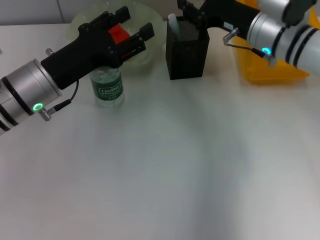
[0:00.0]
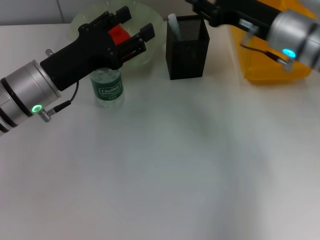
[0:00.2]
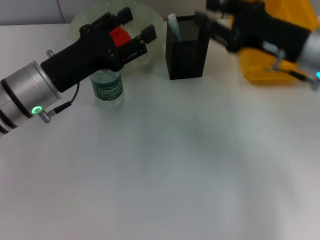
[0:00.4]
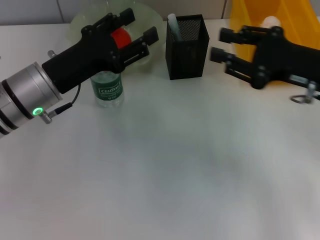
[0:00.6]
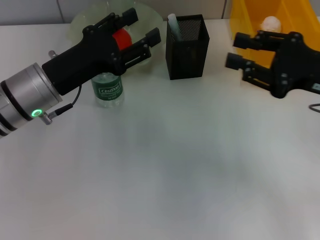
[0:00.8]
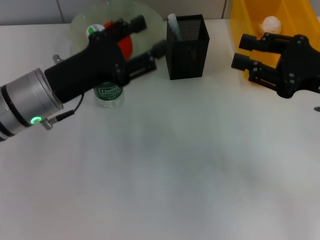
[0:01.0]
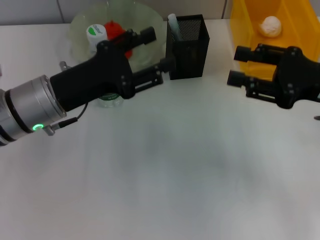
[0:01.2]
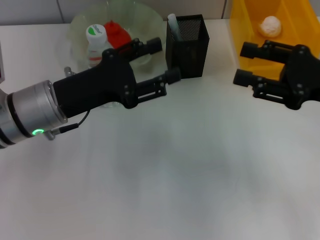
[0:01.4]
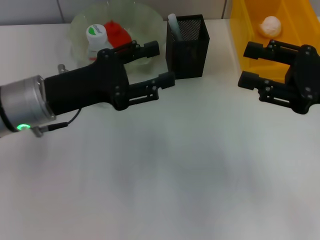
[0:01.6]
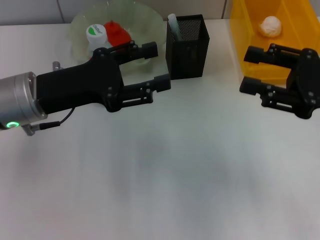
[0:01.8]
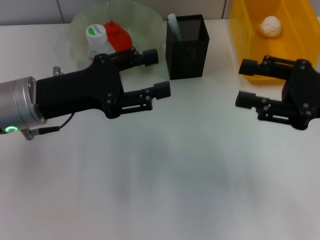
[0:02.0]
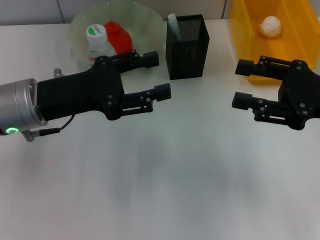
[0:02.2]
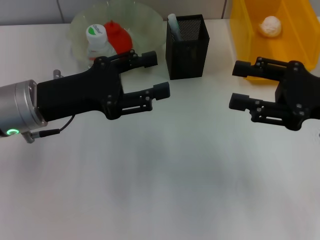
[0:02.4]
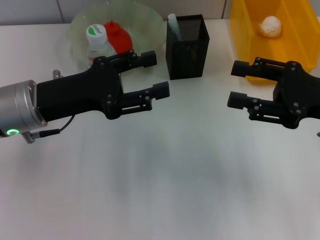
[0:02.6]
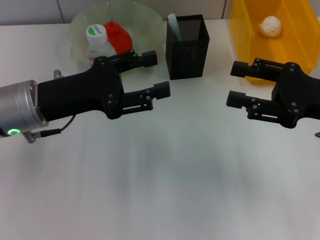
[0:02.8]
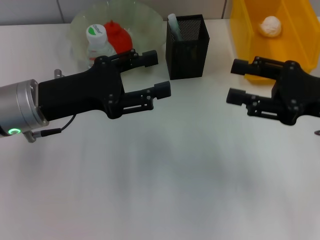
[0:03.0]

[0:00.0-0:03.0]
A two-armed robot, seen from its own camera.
0:00.0 to 0:01.6: The right gripper goes roughly 15 cm backward and to the right, and opens up.
0:01.6 to 0:03.0: The grippers stay close to where they were, moving slightly.

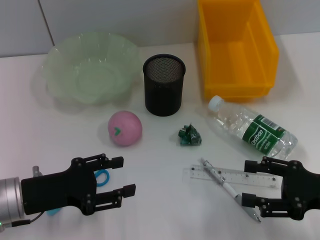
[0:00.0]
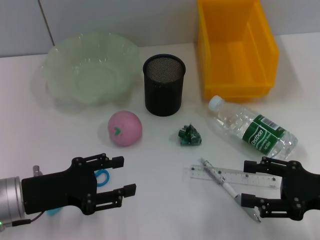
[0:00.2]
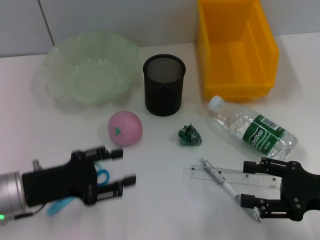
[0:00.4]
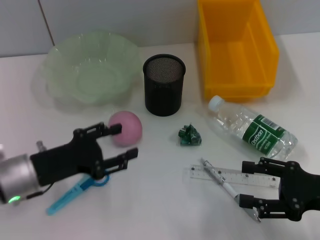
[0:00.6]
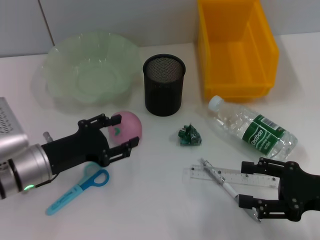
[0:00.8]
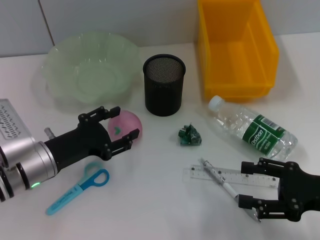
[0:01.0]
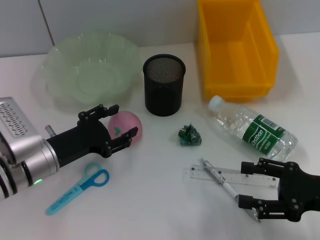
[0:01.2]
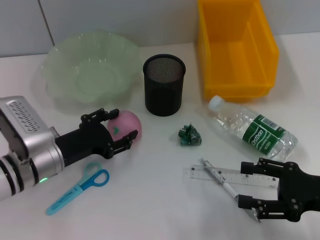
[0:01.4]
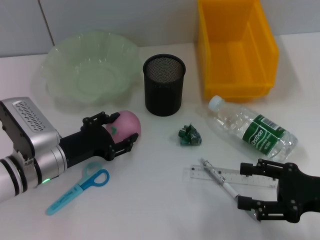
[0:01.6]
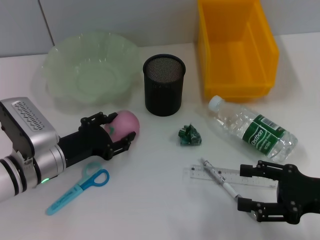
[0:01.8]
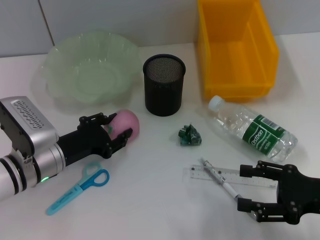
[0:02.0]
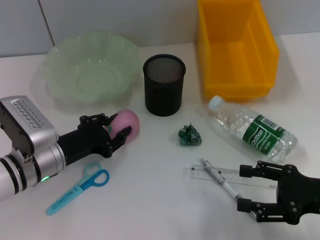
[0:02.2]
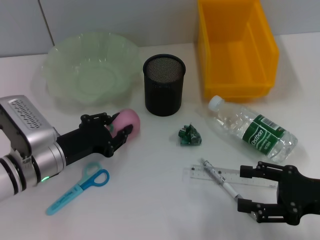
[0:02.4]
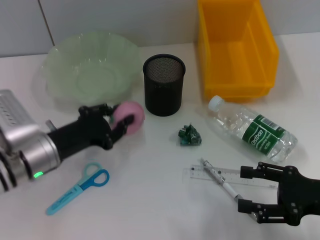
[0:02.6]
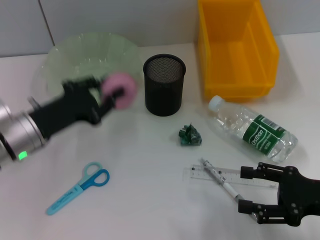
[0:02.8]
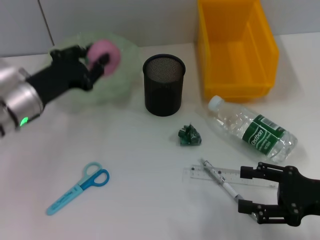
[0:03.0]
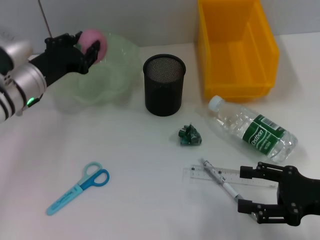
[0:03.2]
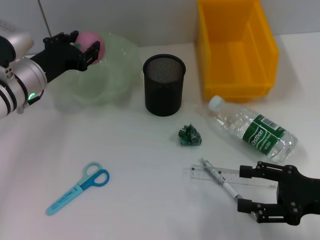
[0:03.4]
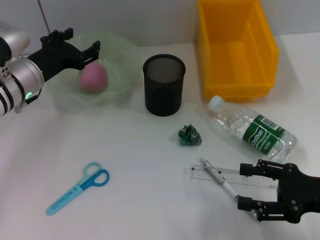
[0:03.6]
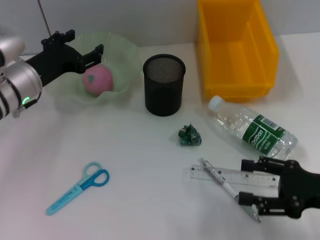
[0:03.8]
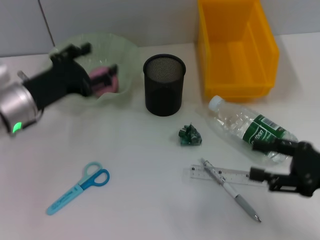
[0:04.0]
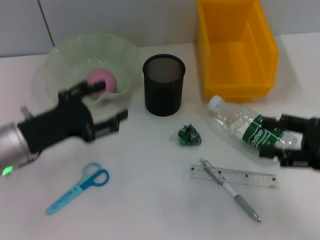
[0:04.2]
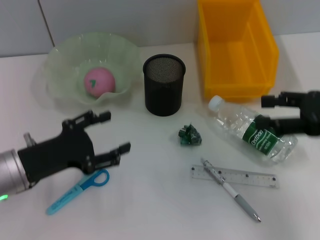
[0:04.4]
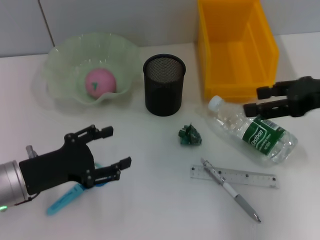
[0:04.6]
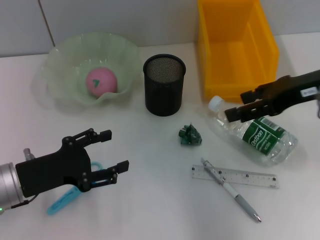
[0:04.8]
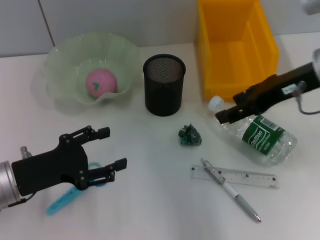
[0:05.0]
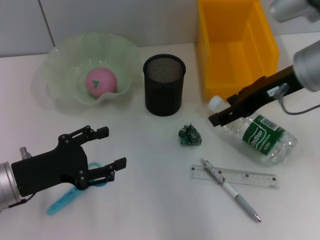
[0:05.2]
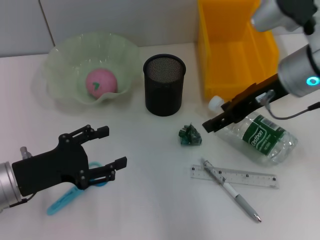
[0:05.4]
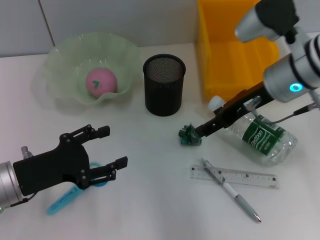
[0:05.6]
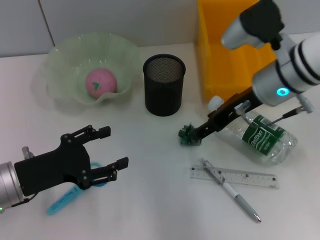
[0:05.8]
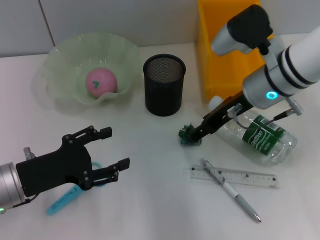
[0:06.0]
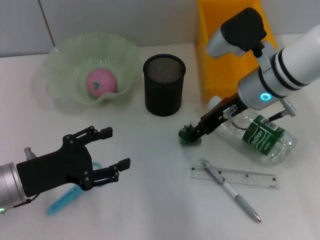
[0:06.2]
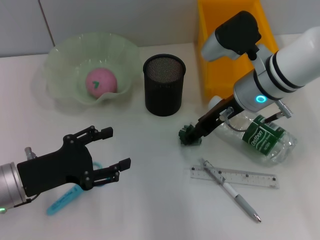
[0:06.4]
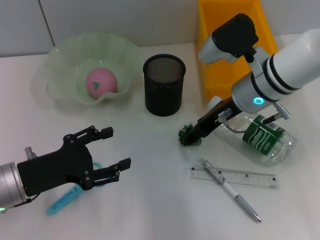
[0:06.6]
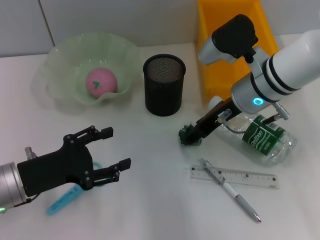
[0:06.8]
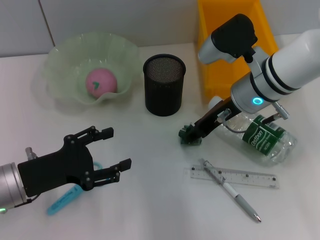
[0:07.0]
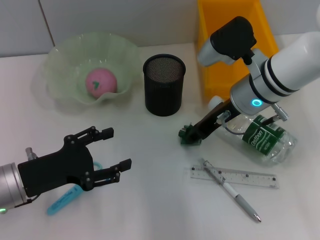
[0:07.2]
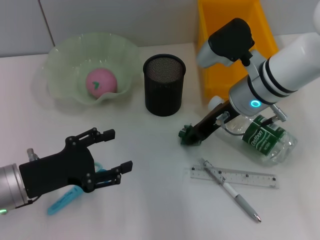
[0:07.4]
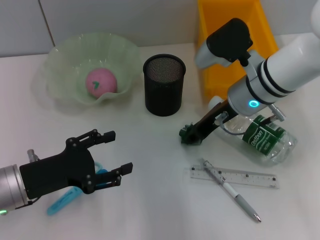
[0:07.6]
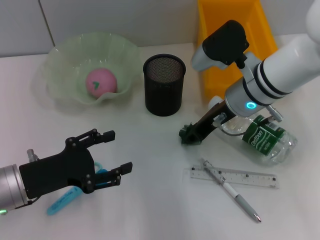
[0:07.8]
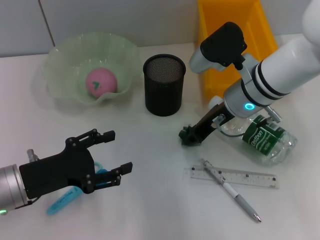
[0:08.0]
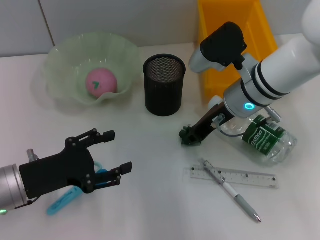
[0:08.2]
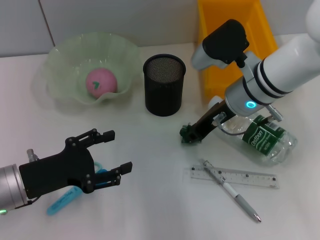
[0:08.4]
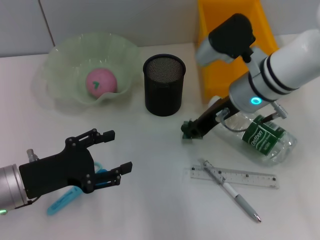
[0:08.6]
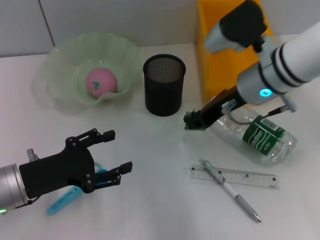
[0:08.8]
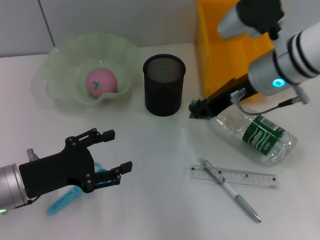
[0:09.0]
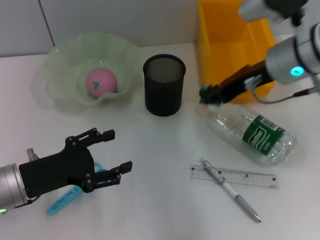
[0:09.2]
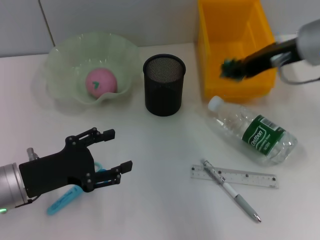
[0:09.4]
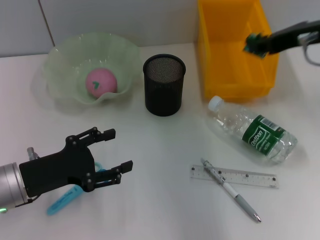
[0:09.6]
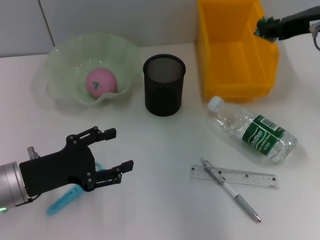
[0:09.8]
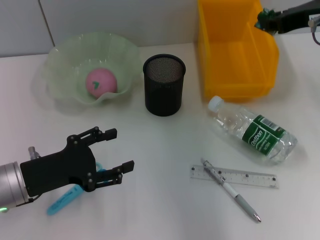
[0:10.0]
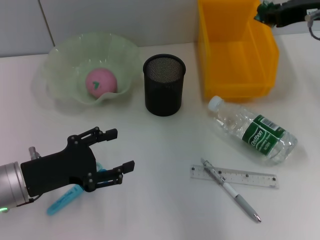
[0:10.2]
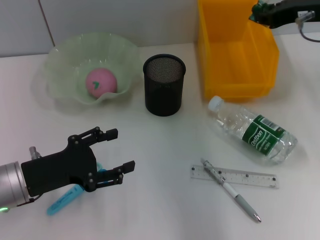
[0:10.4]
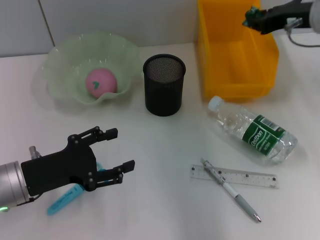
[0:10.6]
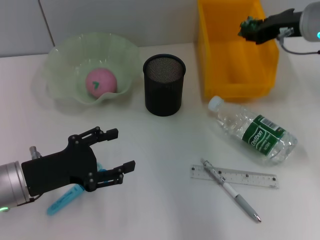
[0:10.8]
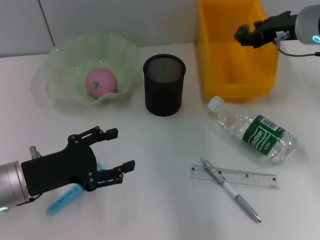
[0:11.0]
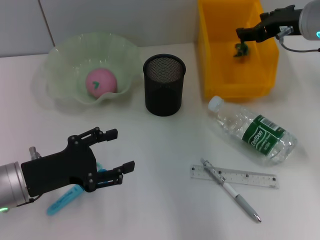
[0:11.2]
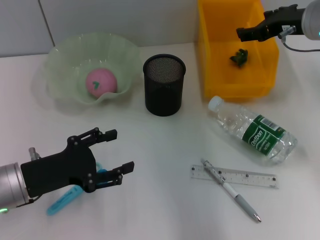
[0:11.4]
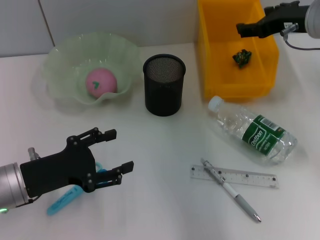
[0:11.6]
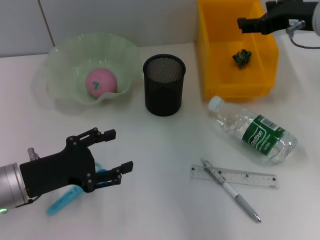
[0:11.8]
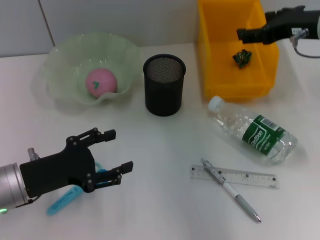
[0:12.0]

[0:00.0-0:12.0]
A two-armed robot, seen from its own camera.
Step, 0:00.0 to 0:01.6: Grab the peach with the left hand.
Step, 0:01.8 to 0:03.8: Place the peach into the fruit bowl with the left hand.
Step, 0:04.0 to 0:08.4: Grab the plastic with the right hand.
Step, 0:08.6 to 0:11.4: Place the plastic into the trash can with the right hand.
0:00.0 to 0:01.6: The left gripper heads forward, covering about 5 cm.
0:01.6 to 0:03.0: The left gripper heads upward and forward, covering roughly 10 cm, and closes.
0:03.0 to 0:04.4: The left gripper is displaced backward by roughly 10 cm, and opens up, while the right gripper heads upward and forward, covering about 15 cm.
0:04.4 to 0:06.0: The right gripper is displaced to the left and forward by approximately 20 cm.
0:06.0 to 0:07.6: The right gripper closes up.
0:07.6 to 0:09.0: The right gripper shifts roughly 5 cm upward.
0:09.0 to 0:10.4: The right gripper heads to the right and upward, covering about 10 cm.
0:10.4 to 0:12.0: The right gripper opens.

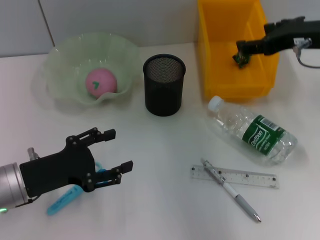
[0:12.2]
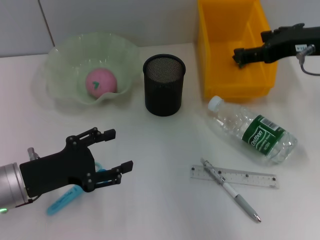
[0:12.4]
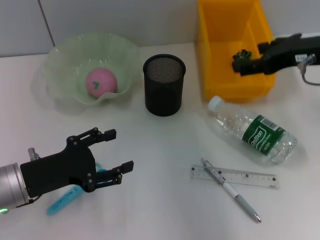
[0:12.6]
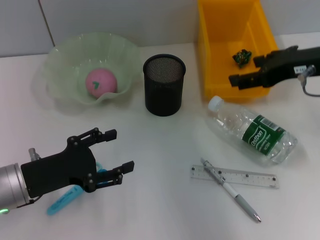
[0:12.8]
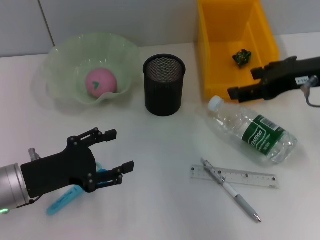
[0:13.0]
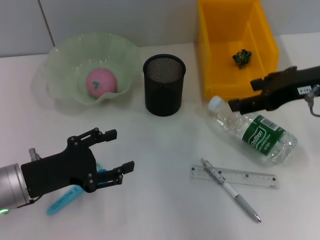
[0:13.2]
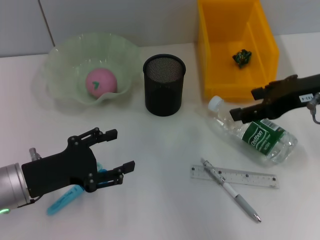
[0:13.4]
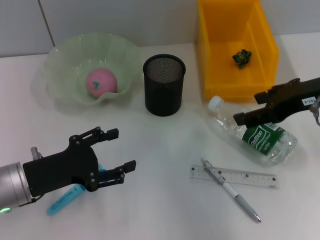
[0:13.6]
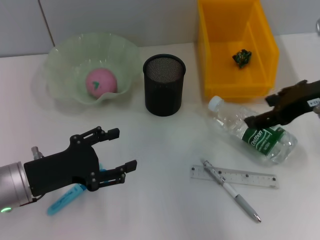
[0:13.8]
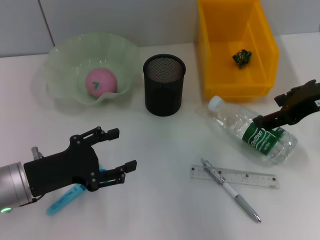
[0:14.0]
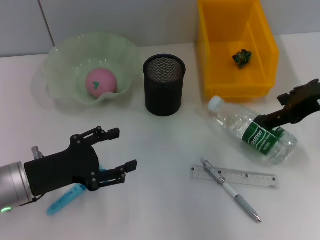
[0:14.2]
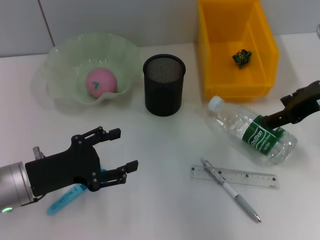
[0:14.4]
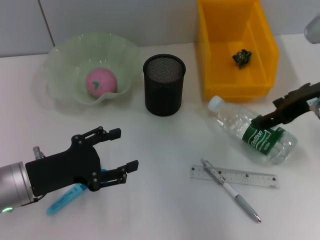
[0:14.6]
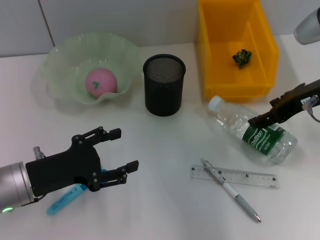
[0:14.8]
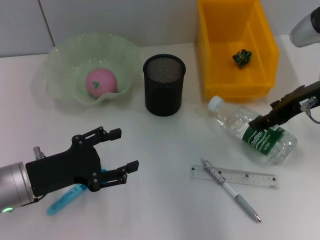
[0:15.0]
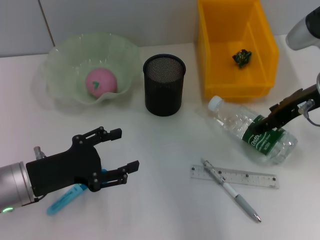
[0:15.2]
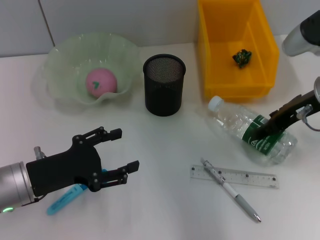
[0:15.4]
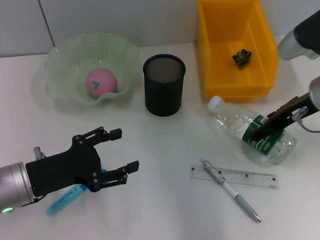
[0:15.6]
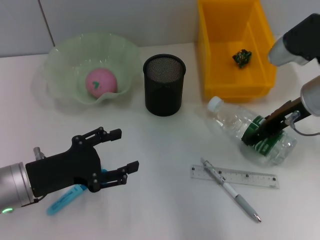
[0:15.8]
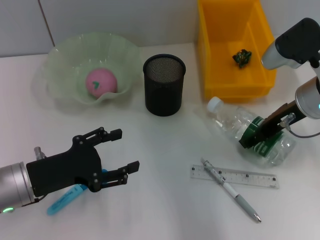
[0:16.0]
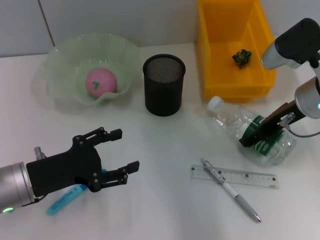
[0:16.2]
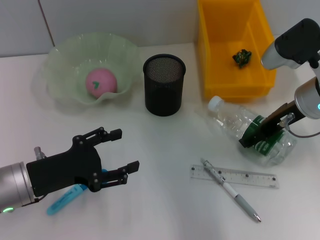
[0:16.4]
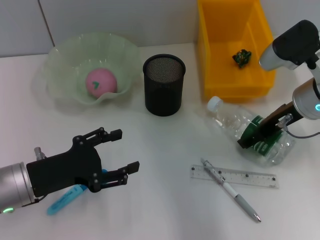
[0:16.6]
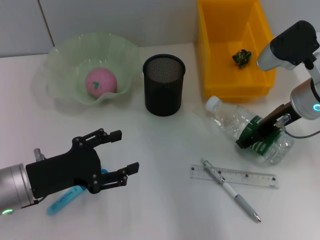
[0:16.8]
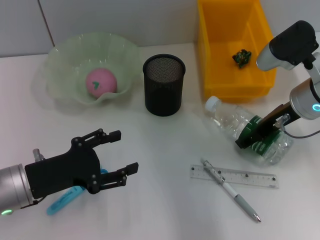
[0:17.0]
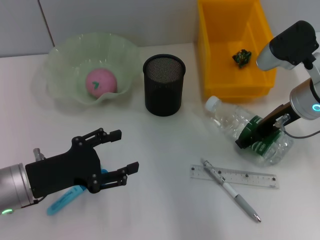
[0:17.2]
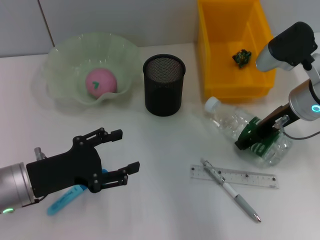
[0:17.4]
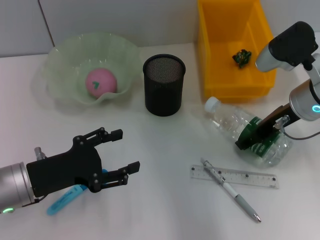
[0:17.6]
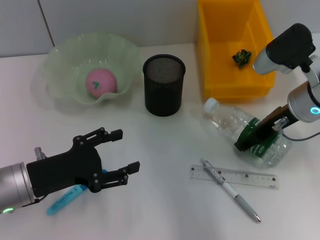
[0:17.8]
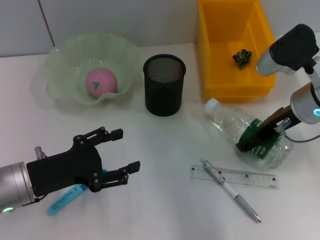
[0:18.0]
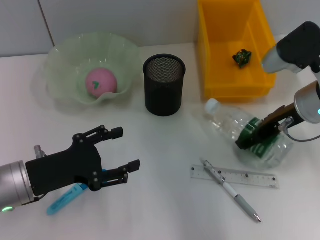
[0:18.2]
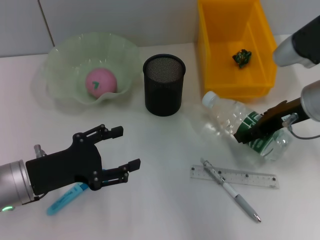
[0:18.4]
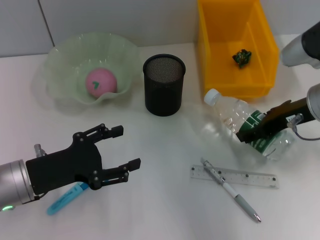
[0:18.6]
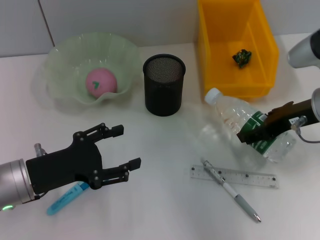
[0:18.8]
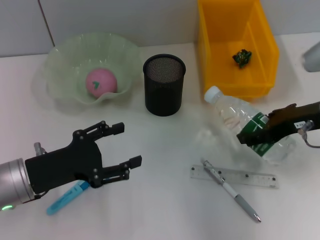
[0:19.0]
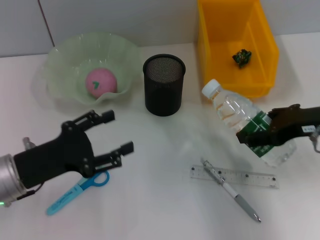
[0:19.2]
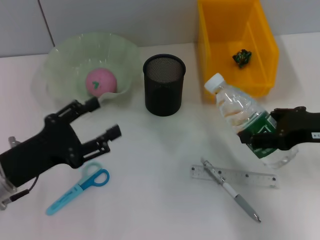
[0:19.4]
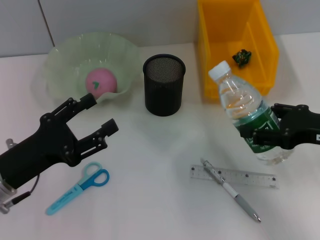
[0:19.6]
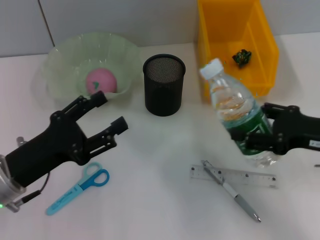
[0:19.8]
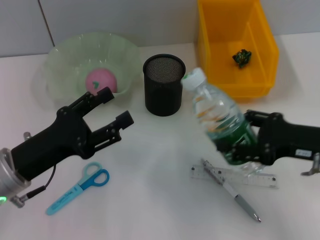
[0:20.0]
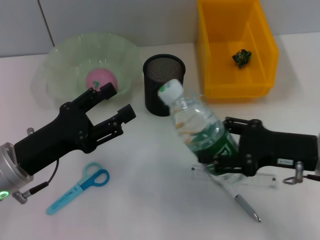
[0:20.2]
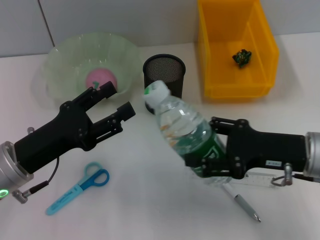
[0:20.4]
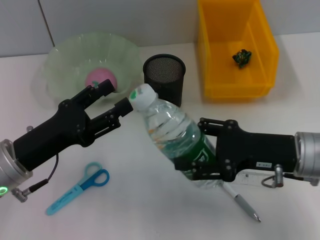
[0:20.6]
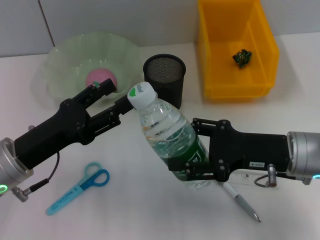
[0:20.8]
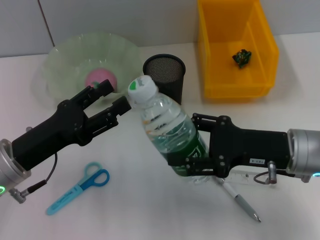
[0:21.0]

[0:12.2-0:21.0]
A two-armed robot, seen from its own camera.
Step, 0:12.2 to 0:18.2: Grab the water bottle with the right hand.
0:12.2 to 0:13.6: The right gripper goes about 5 cm backward.
0:13.6 to 0:15.2: The right gripper changes place by approximately 5 cm.
0:15.2 to 0:16.6: There are only small adjustments of the grippers.
0:16.6 to 0:18.0: Neither gripper changes place.
0:18.0 to 0:19.6: The right gripper is displaced backward and to the right by approximately 10 cm.
0:19.6 to 0:21.0: The right gripper shifts approximately 10 cm to the left.
